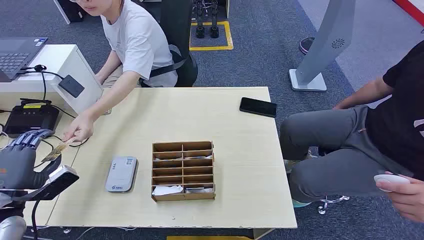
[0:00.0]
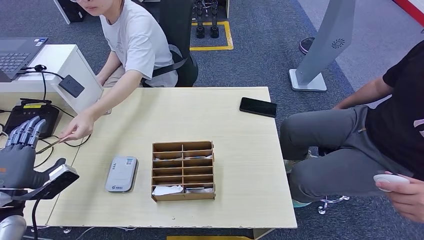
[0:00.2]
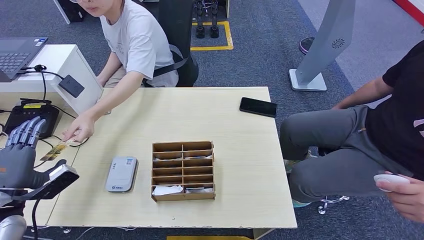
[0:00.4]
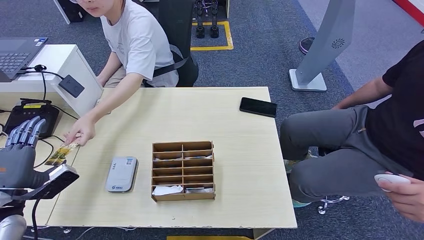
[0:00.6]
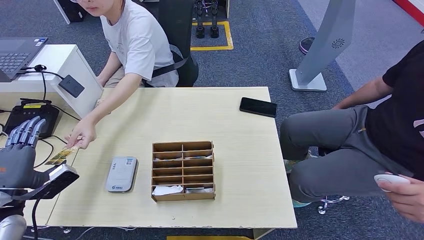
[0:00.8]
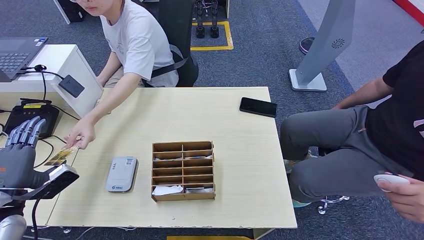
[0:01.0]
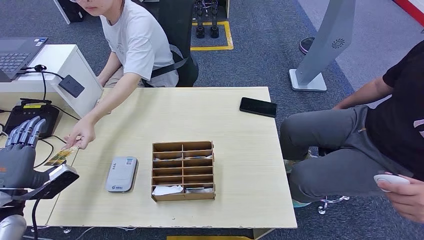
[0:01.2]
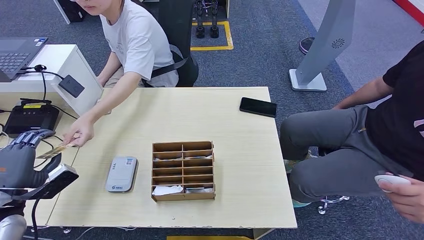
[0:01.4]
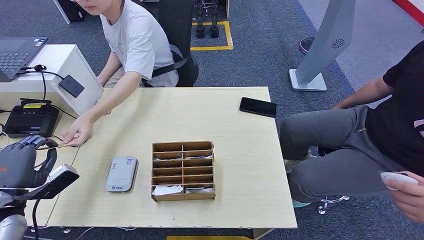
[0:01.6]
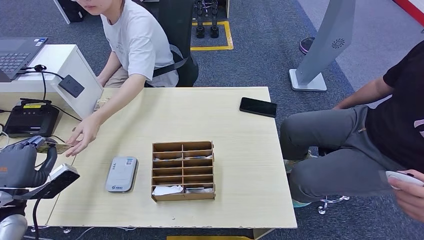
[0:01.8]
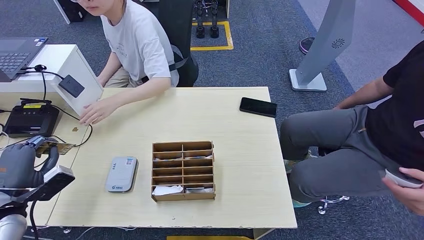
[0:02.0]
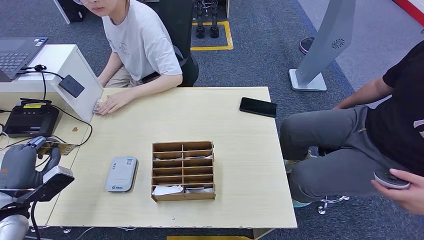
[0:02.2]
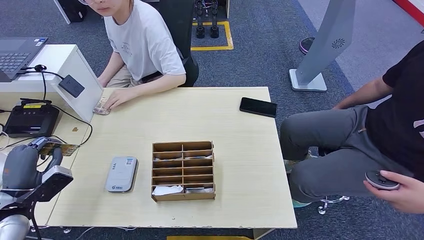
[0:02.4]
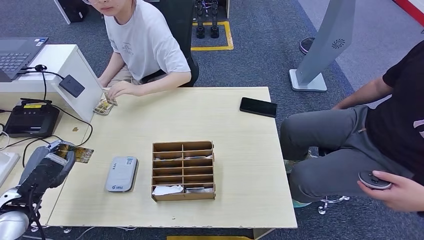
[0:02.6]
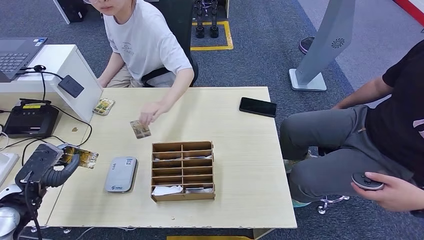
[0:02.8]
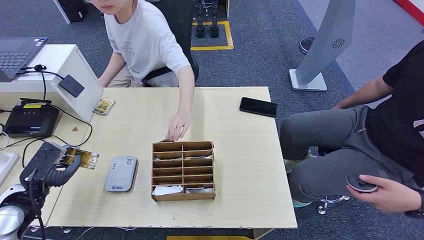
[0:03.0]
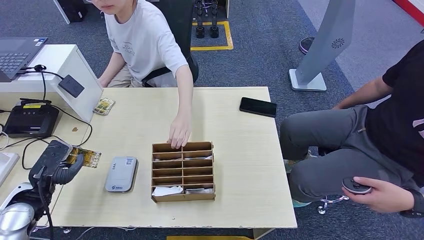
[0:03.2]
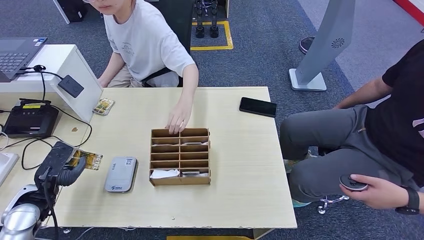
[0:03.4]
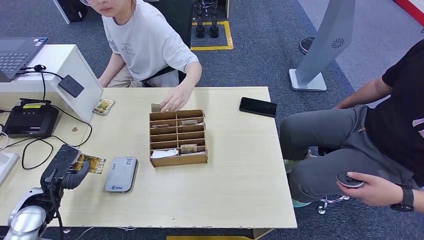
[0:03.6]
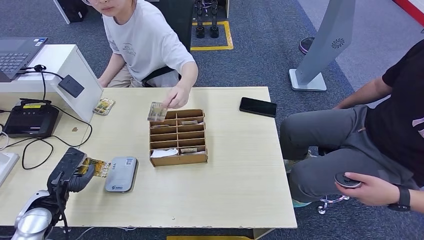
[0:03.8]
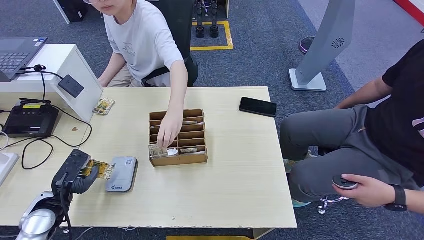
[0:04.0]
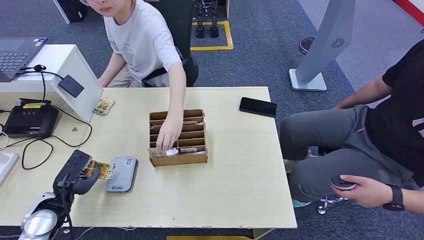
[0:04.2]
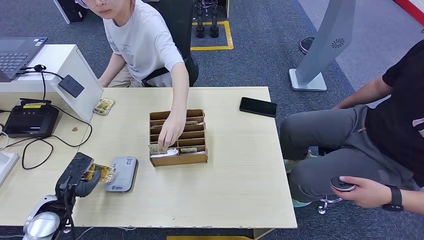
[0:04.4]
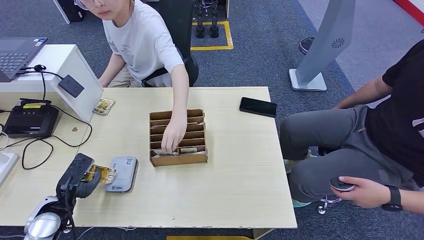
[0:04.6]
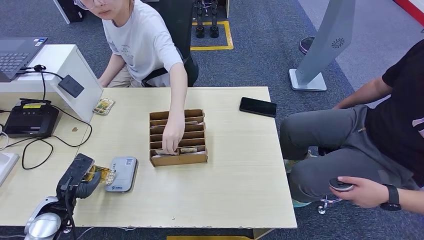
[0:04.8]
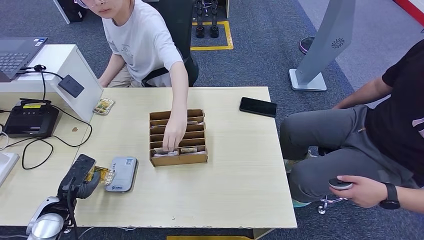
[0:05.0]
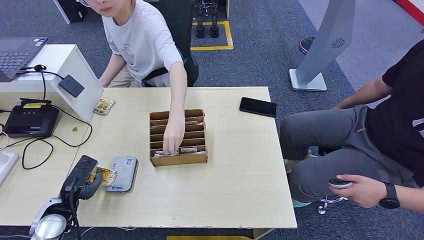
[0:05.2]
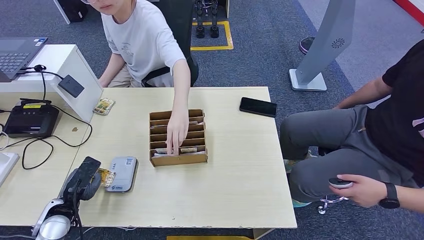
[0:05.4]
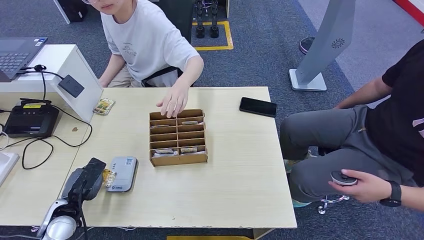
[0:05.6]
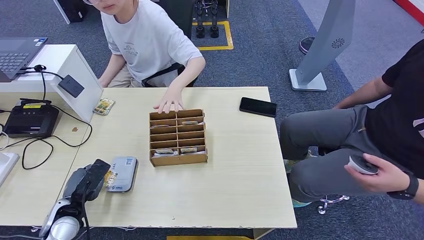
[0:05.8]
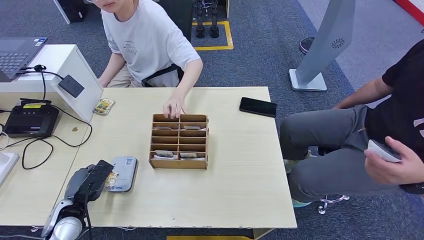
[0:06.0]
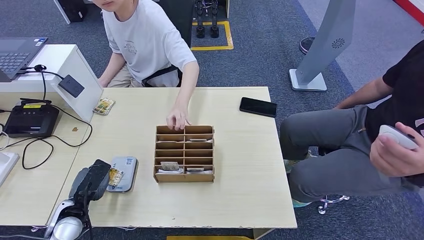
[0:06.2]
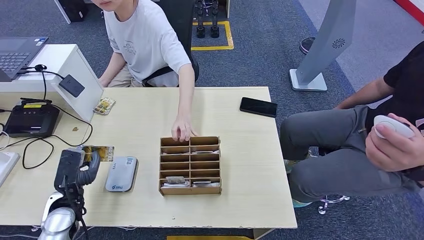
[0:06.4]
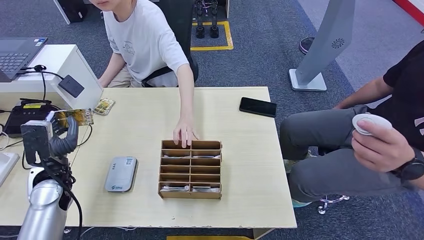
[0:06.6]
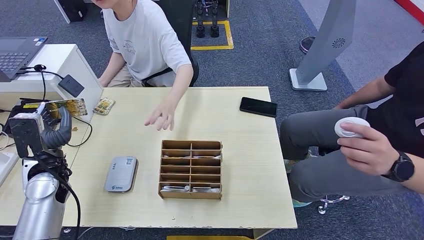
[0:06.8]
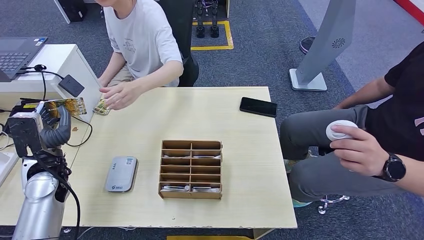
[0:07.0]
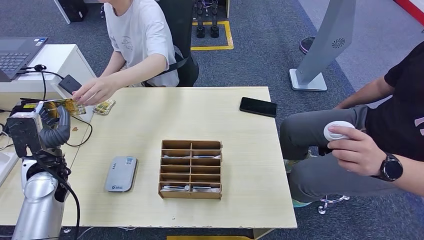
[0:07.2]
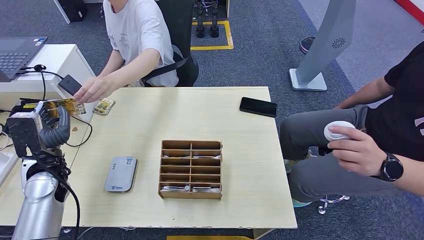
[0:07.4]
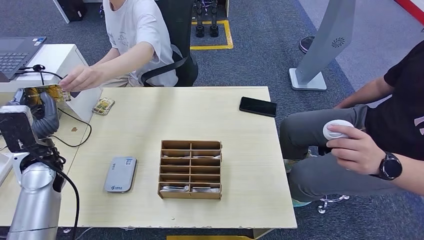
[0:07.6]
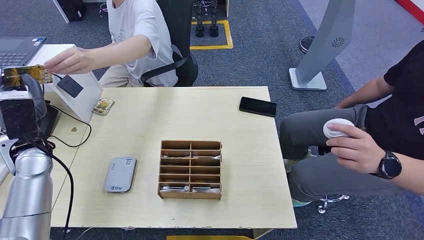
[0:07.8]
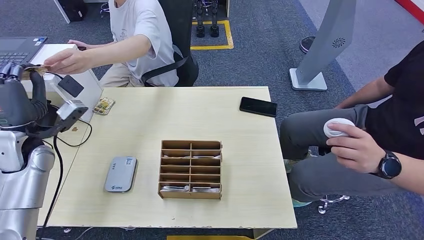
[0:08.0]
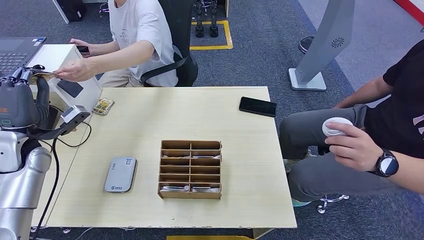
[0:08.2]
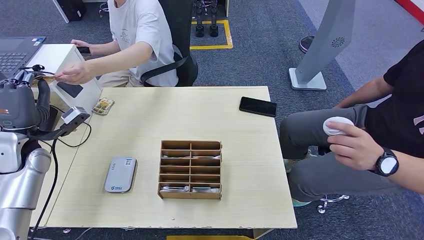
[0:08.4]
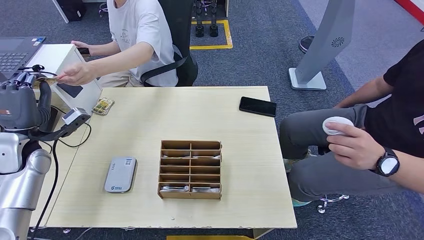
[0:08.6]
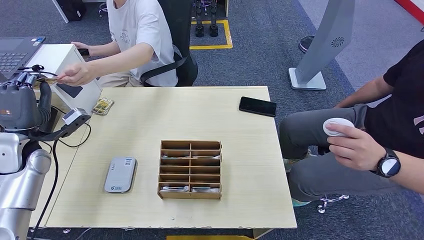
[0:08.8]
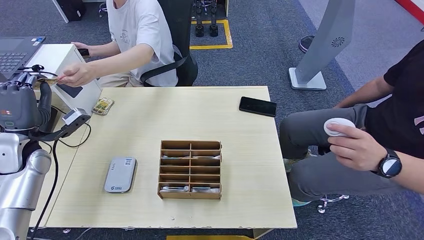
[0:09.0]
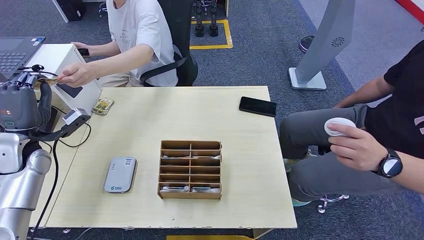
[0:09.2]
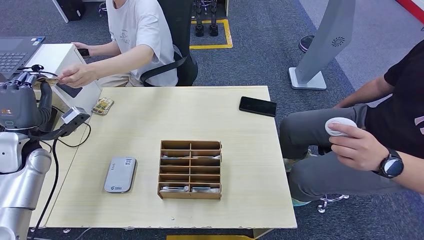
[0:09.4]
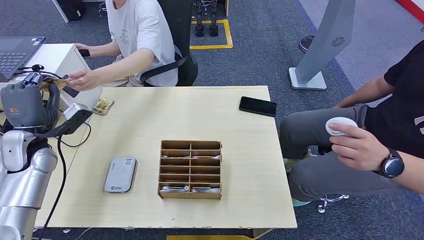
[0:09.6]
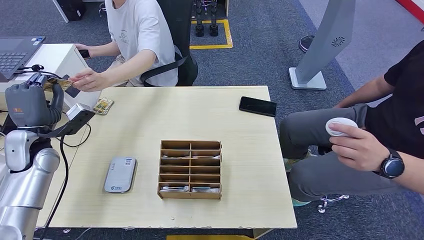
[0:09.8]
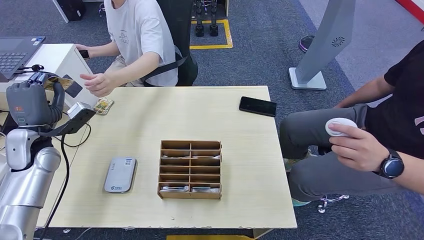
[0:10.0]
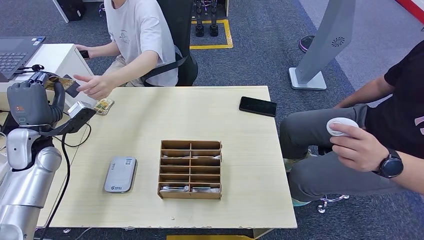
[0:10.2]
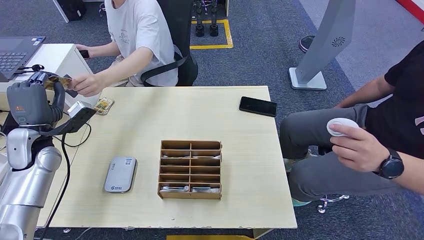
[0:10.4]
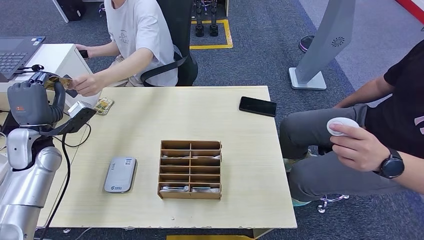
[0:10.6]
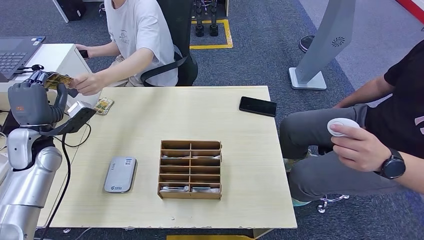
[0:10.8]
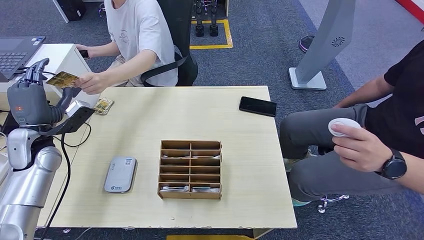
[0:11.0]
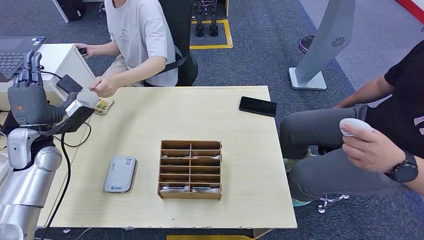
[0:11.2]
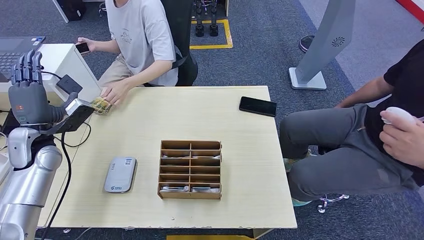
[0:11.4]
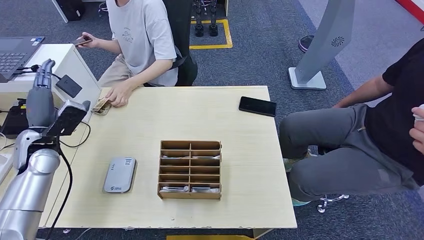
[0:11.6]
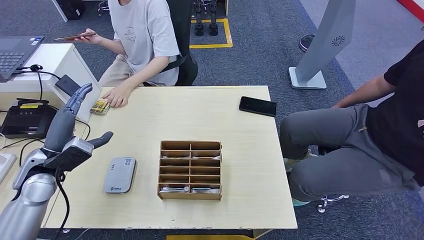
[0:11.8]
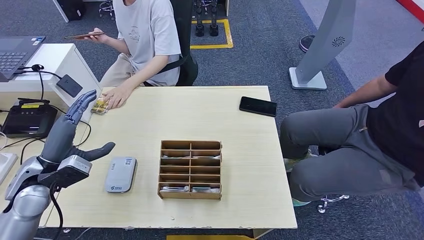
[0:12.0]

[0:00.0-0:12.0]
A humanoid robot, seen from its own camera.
Step, 0:00.0 to 0:01.8: Take the ID card from the person's hand.
Step, 0:02.0 to 0:05.8: Place the ID card on the card reader.
Step, 0:06.0 to 0:08.6: Hand the ID card to the person.
0:03.0 to 0:04.4: The left hand is displaced downward by roughly 5 cm.
0:04.4 to 0:06.0: The hands move only a little.
0:07.6 to 0:09.0: The left hand shifts approximately 5 cm to the left.
0:09.0 to 0:10.4: The hands stay close to where they were, moving slightly.
0:10.4 to 0:12.0: The left hand travels backward by about 10 cm.

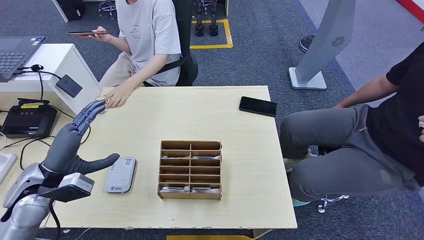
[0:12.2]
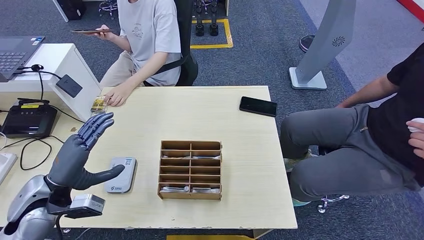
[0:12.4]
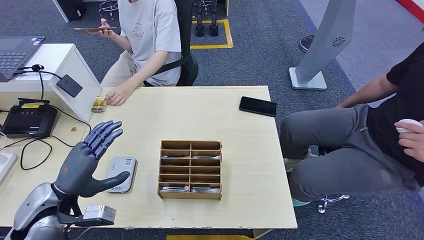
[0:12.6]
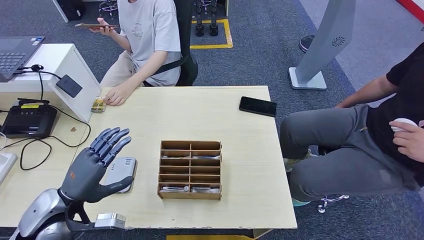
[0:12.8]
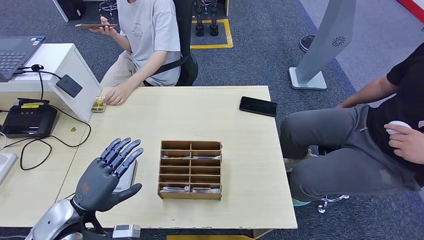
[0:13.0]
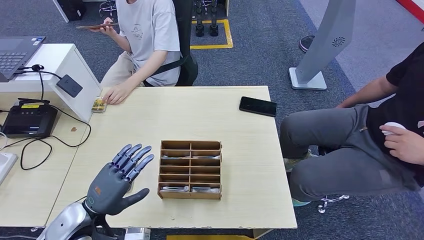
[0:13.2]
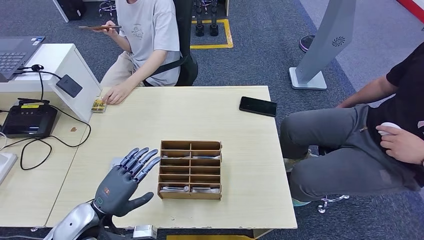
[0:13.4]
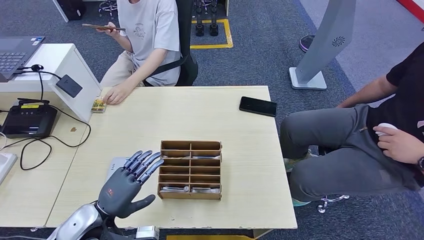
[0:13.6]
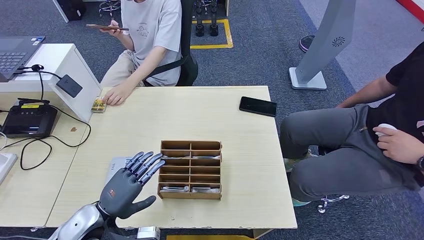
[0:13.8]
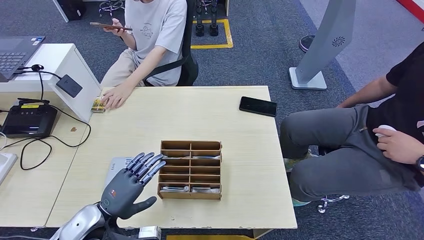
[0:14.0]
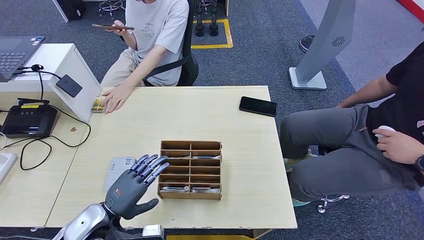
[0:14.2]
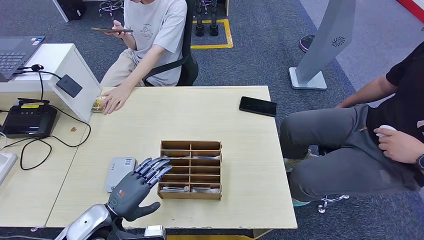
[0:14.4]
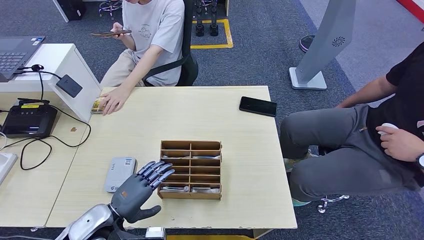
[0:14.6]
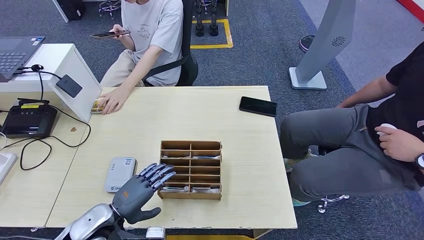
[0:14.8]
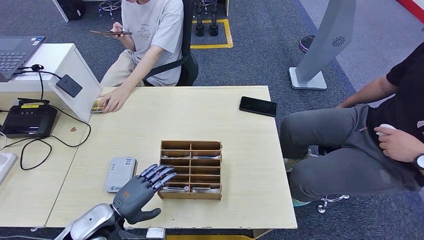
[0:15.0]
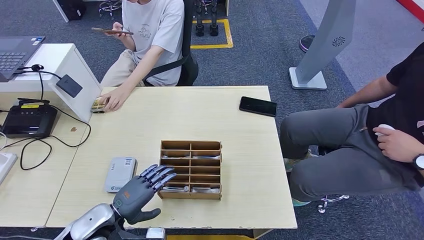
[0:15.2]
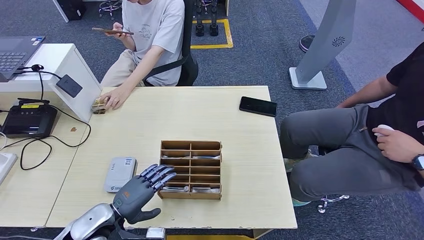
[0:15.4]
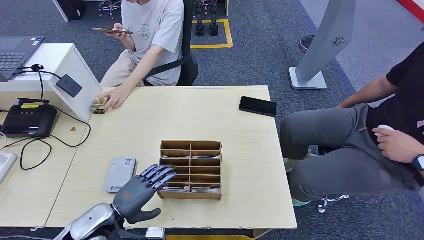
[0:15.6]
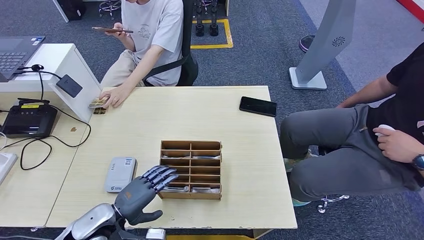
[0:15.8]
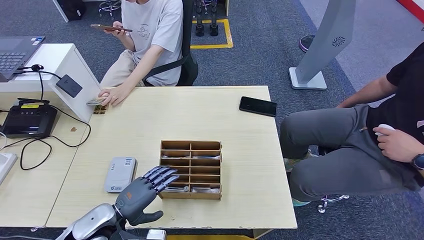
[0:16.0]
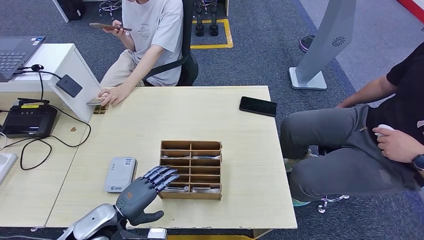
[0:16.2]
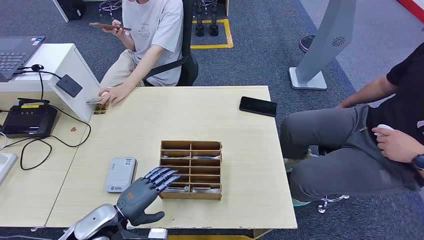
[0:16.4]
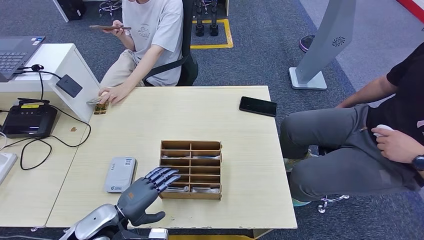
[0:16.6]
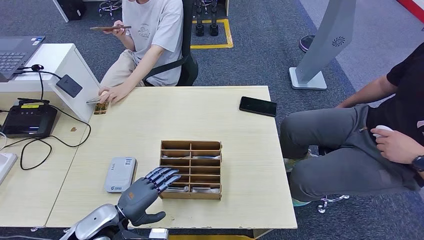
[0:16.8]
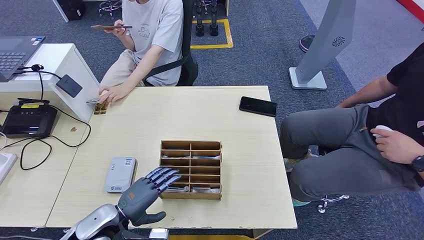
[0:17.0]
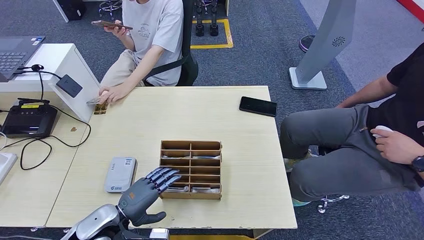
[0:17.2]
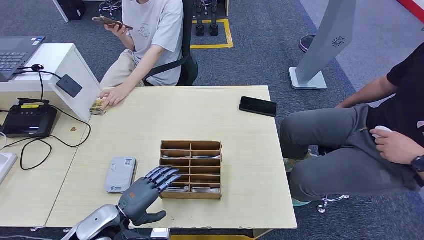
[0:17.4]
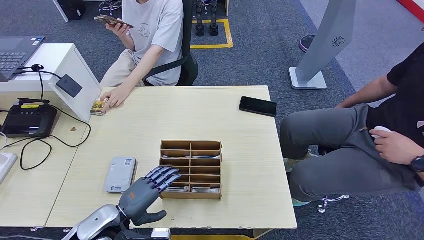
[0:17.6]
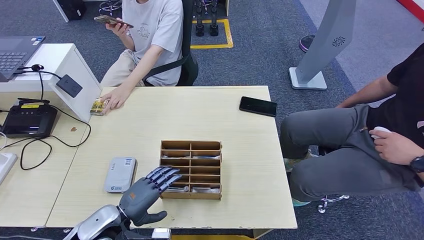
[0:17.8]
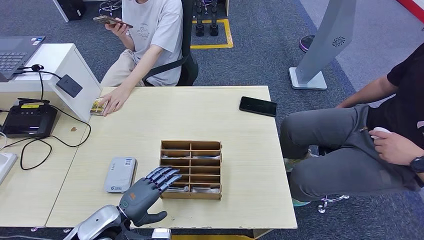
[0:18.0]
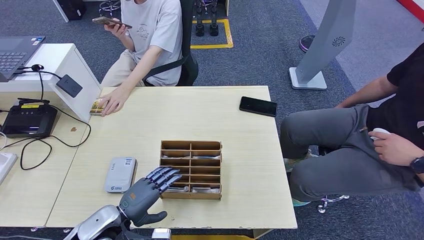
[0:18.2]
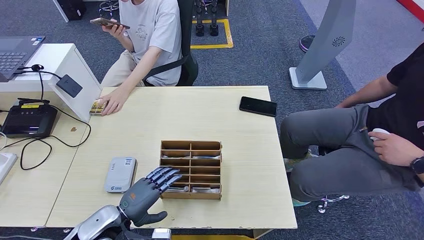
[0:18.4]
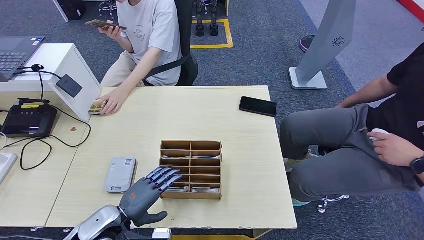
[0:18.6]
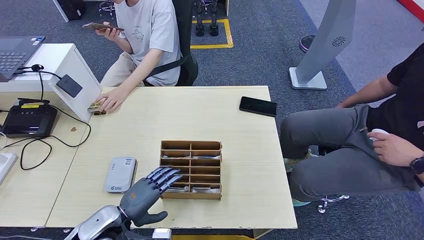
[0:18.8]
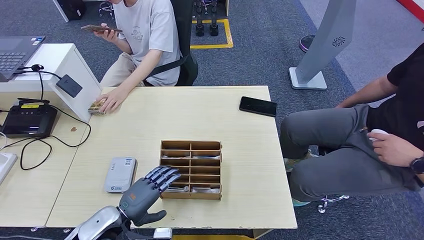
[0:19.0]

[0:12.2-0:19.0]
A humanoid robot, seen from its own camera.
0:12.2 to 0:13.6: The left hand shifts some 15 cm downward, to the right and backward.
0:13.6 to 0:15.0: The hands stay close to where they were, moving slightly.
0:15.0 to 0:17.6: Both hands stay put.
0:17.6 to 0:19.0: Both hands stay about where they are.
